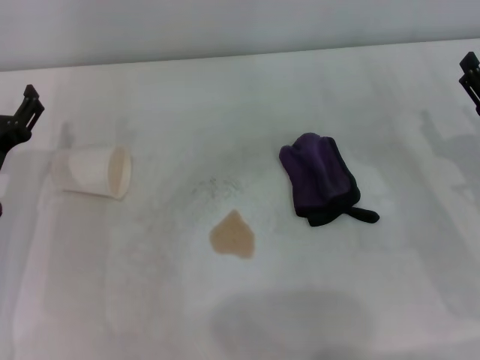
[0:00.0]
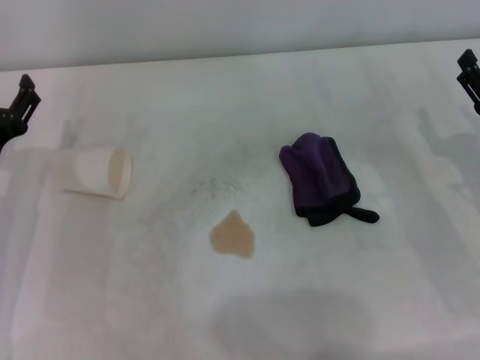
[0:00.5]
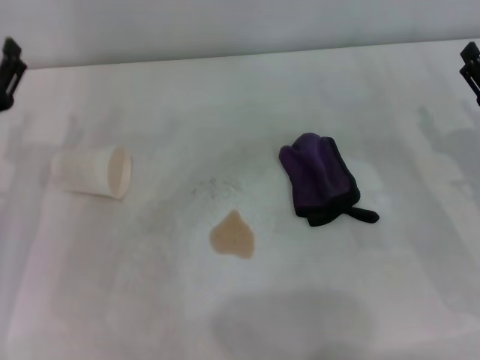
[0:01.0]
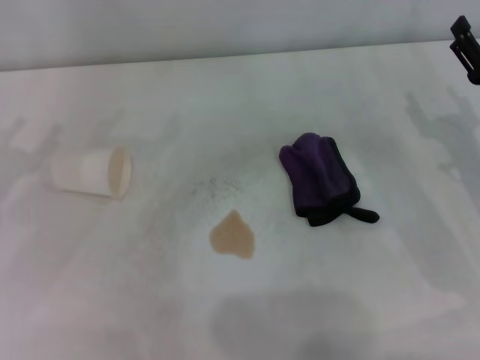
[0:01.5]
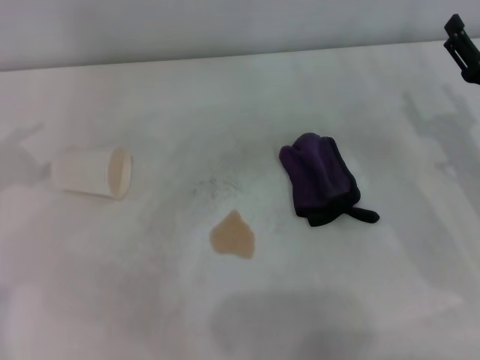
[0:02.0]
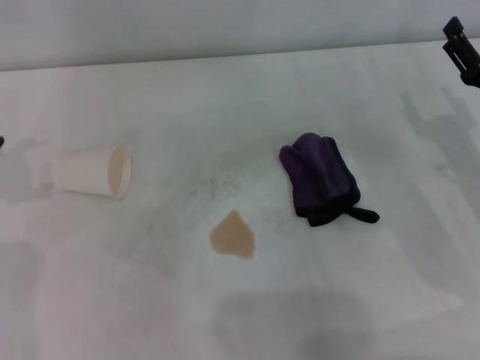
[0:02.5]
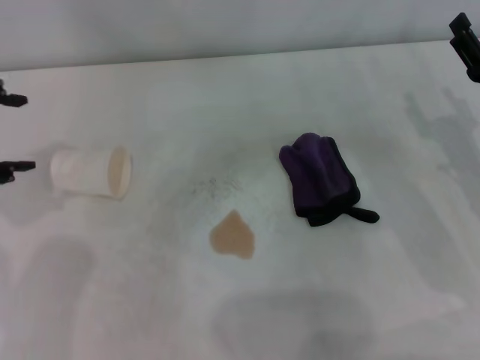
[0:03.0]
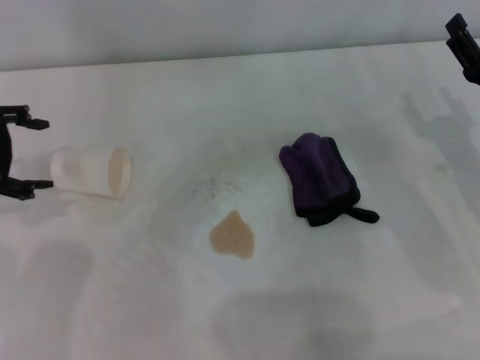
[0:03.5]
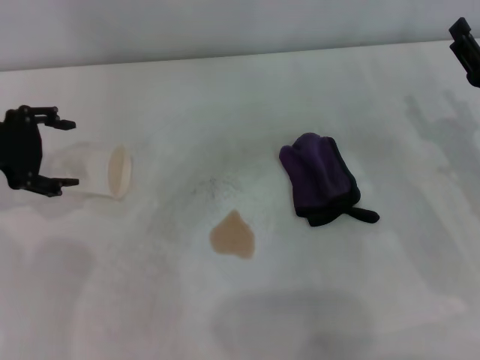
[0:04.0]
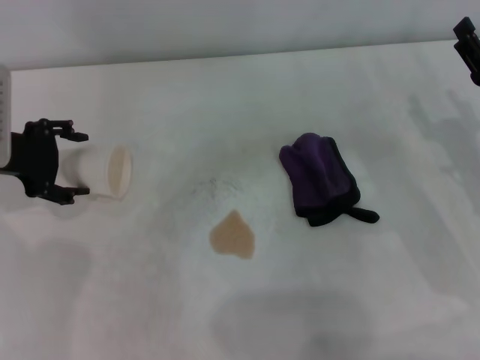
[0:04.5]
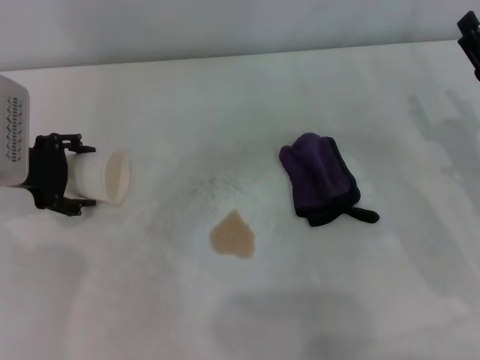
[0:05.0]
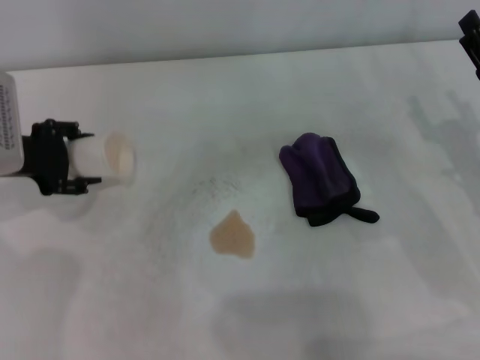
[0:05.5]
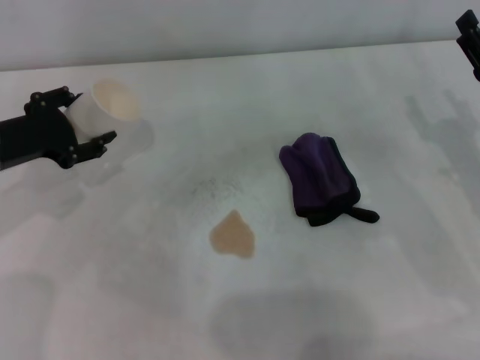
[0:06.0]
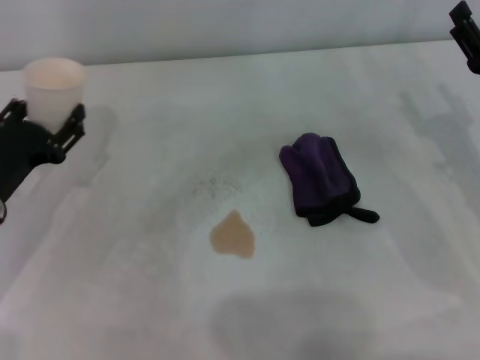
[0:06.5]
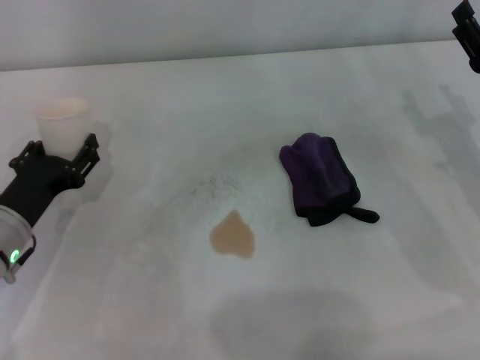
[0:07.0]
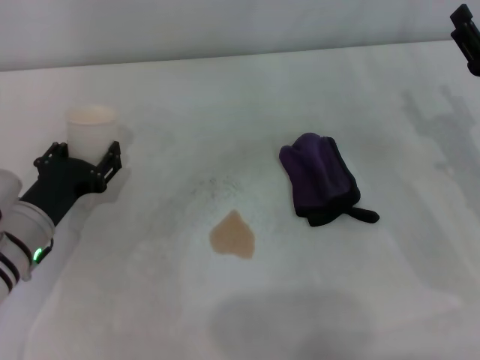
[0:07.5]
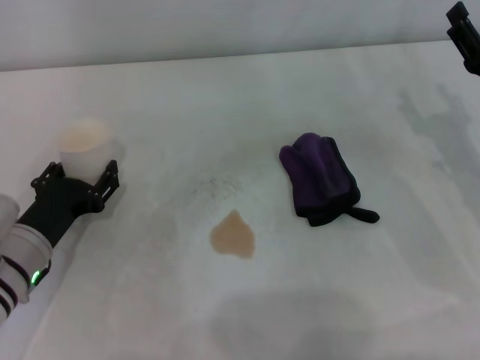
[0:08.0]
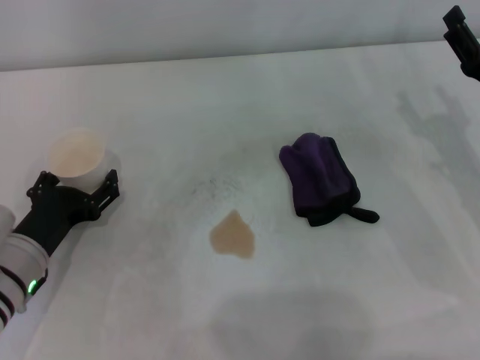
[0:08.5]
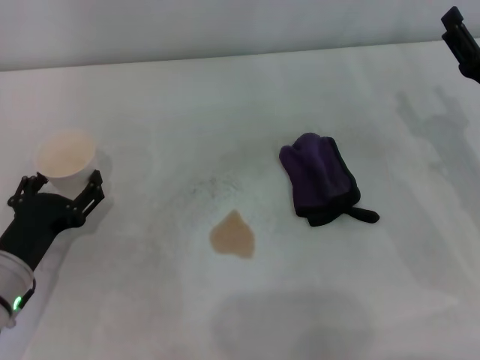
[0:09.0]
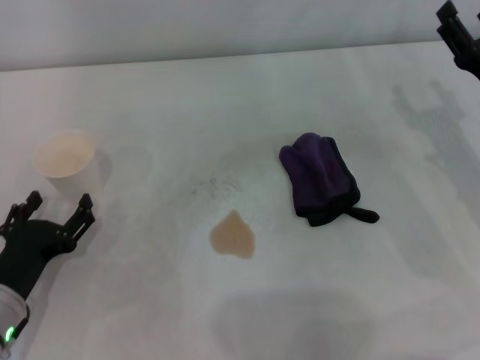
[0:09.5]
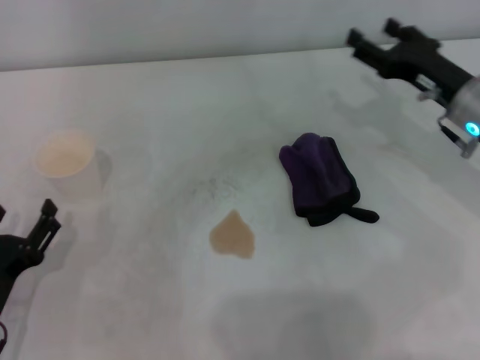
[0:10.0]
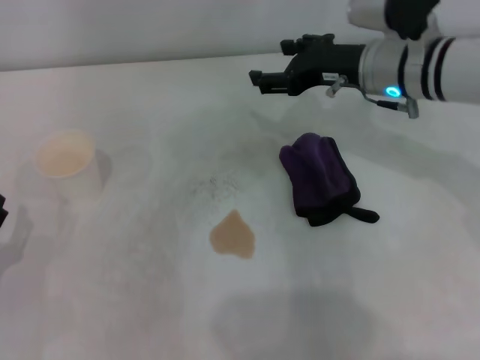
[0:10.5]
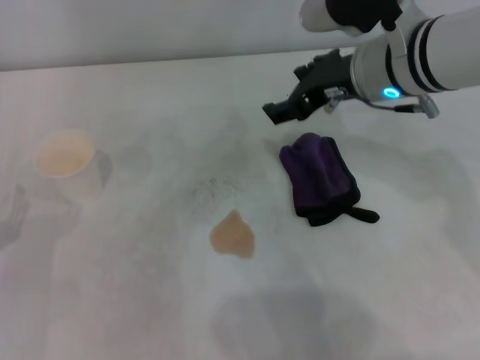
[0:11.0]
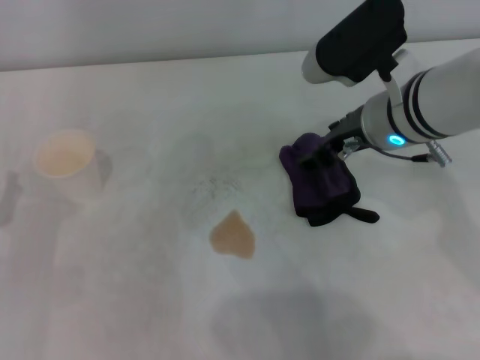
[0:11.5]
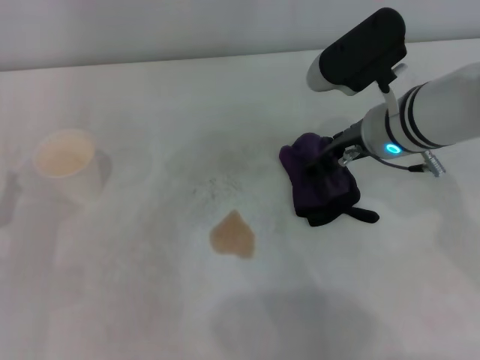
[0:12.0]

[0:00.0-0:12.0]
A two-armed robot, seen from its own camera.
Step, 0:00.0 to 0:05.0: Grasp the paper cup with the left gripper.
Step, 0:05.5 to 0:08.5: Stand the paper cup upright with the left gripper.
0:00.0 to 0:02.0: The left gripper is displaced upward and to the left by approximately 20 cm.
0:02.0 to 0:04.0: The left gripper is displaced to the right and forward by approximately 10 cm.
0:04.0 to 0:06.0: The left gripper moves downward, roughly 5 cm, and closes up.
0:06.0 to 0:08.0: The left gripper heads downward and backward, covering roughly 10 cm.
0:08.0 to 0:10.0: The right gripper travels forward by about 5 cm. Meanwhile the left gripper heads backward, covering roughly 10 cm, and opens.
0:10.0 to 0:12.0: The left gripper changes place by roughly 5 cm. Meanwhile the right gripper travels to the left by roughly 10 cm.

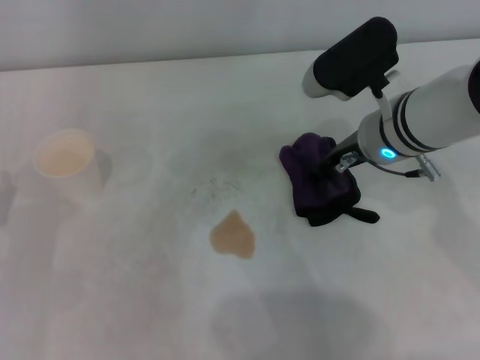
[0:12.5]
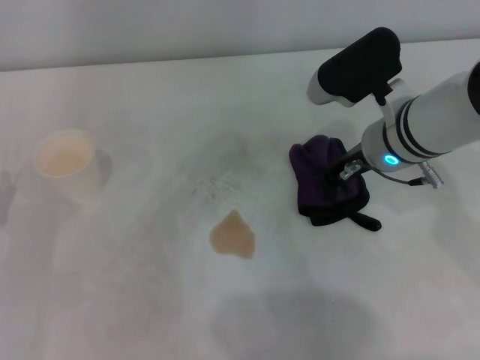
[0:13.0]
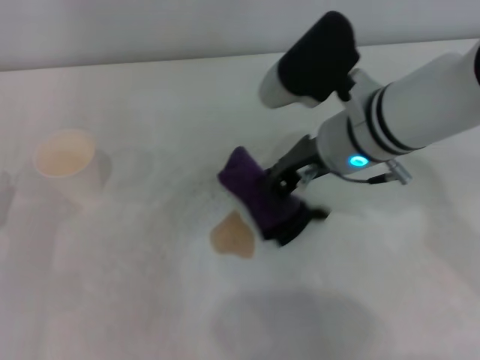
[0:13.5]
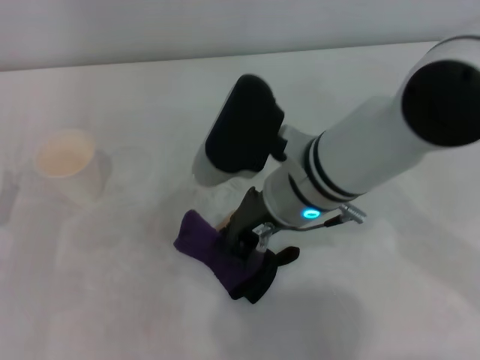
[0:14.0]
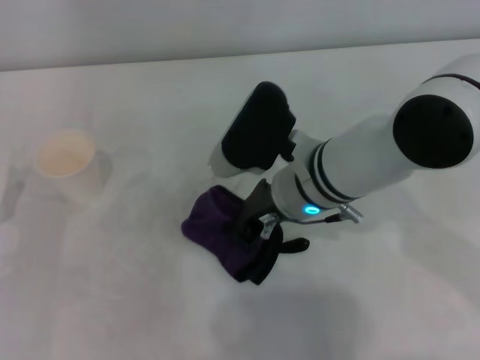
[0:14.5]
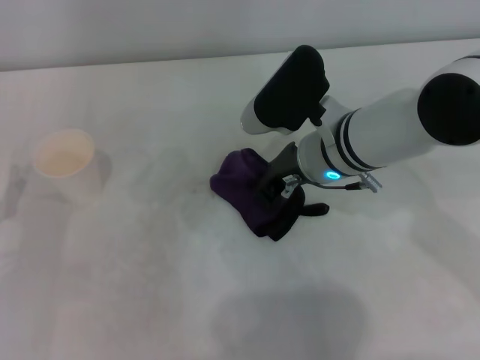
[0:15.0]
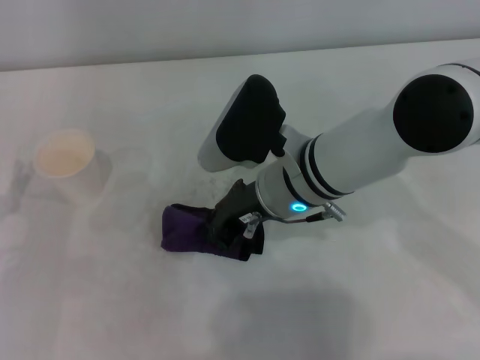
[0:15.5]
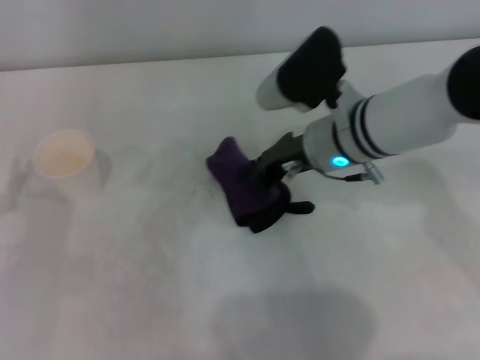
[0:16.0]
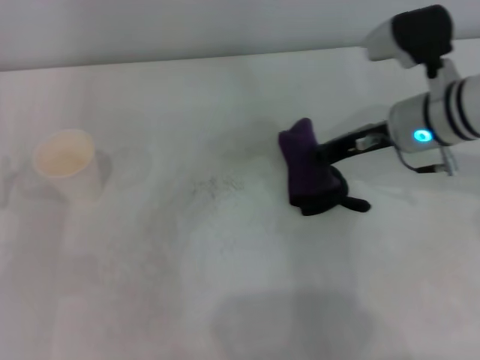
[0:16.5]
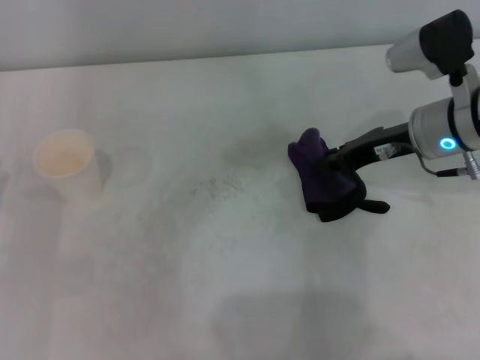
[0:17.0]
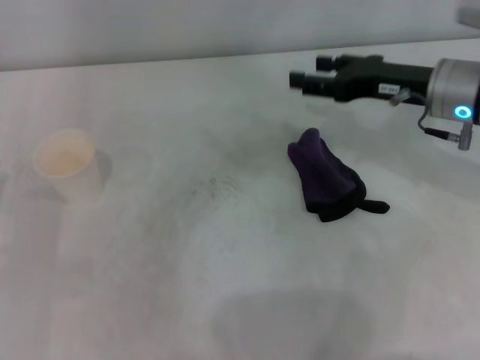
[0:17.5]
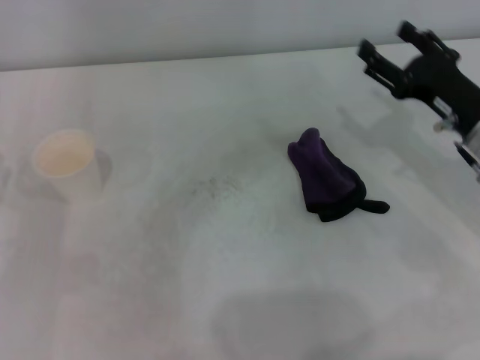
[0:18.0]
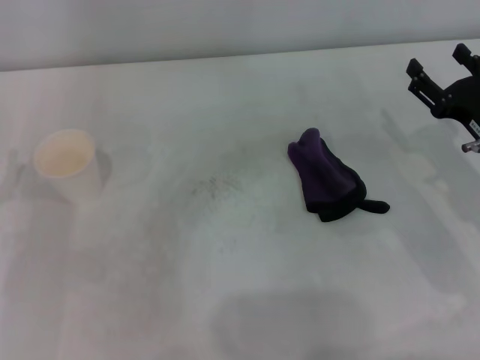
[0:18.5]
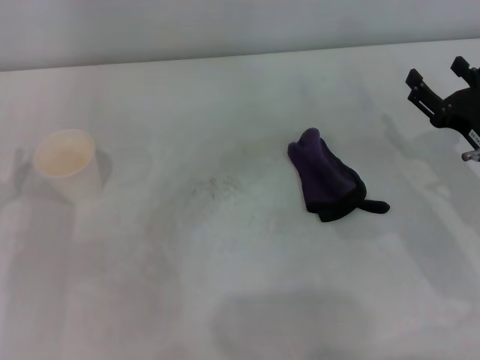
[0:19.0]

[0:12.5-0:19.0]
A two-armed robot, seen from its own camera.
Step, 0:13.5 to 0:16.0: Wipe the stains off the table with the right gripper.
0:12.5 to 0:14.5: The right gripper is displaced to the left by some 10 cm, and closes up.
0:14.5 to 0:17.0: The right gripper heads to the right, covering approximately 15 cm.
0:17.0 to 0:19.0: The right gripper shifts about 15 cm backward, to the right and downward, and opens its fingers.
